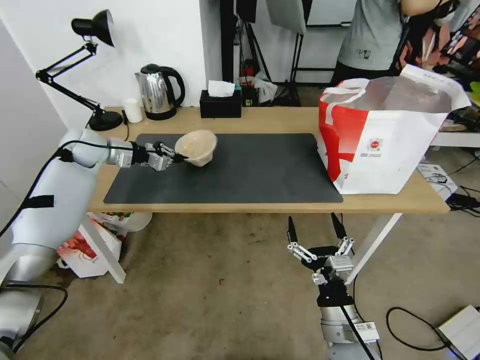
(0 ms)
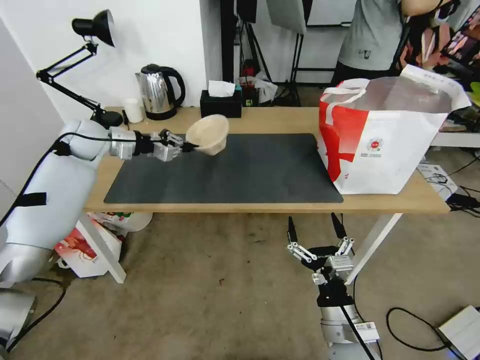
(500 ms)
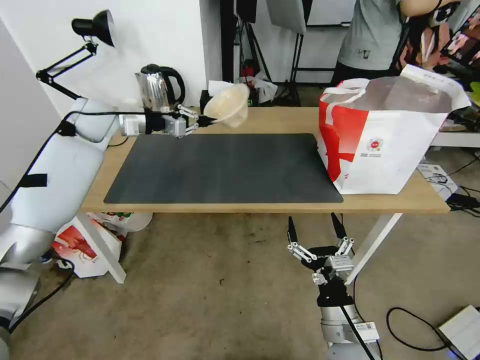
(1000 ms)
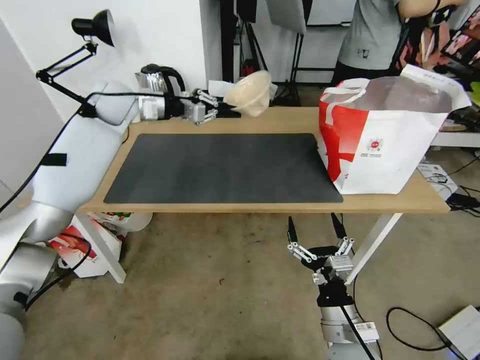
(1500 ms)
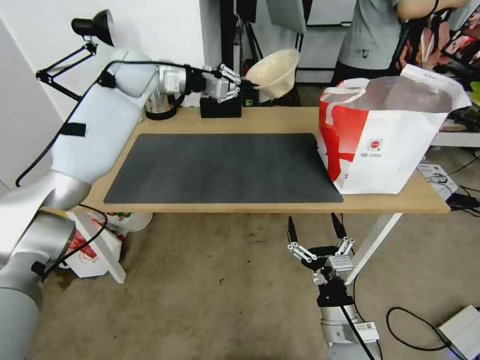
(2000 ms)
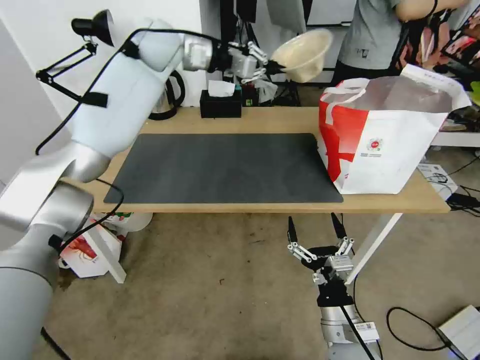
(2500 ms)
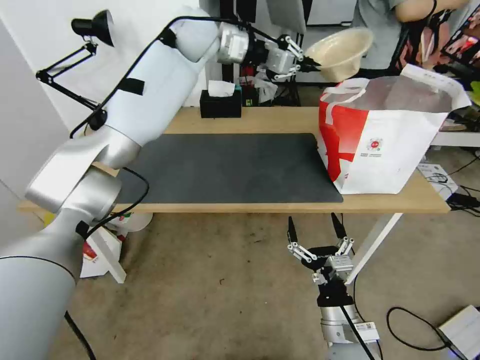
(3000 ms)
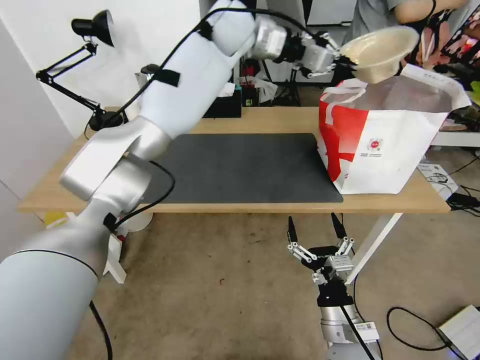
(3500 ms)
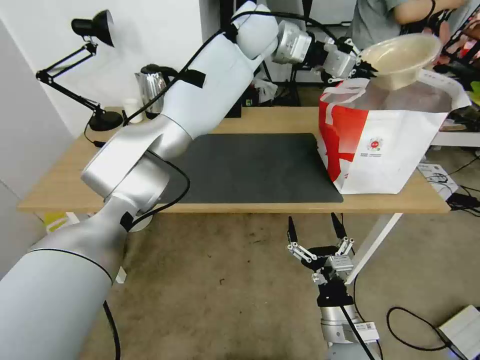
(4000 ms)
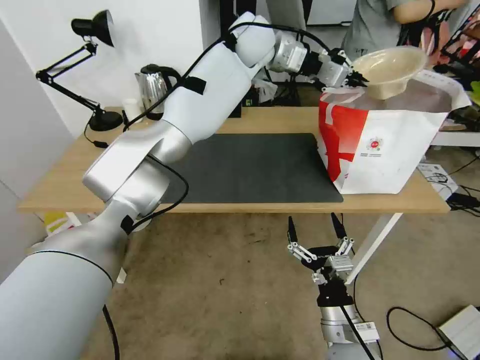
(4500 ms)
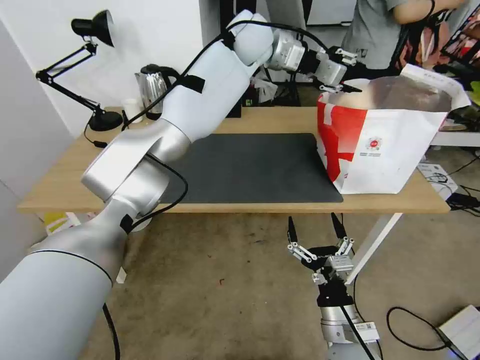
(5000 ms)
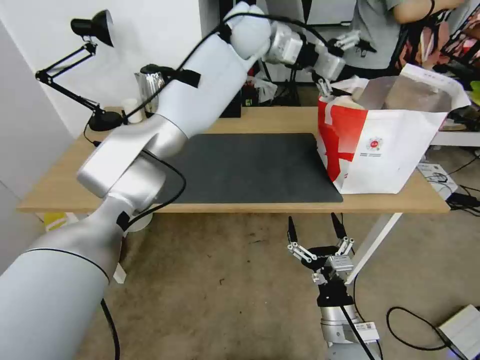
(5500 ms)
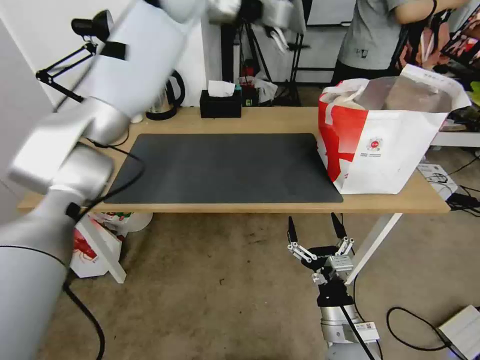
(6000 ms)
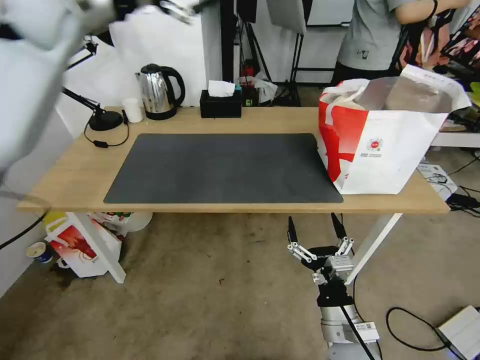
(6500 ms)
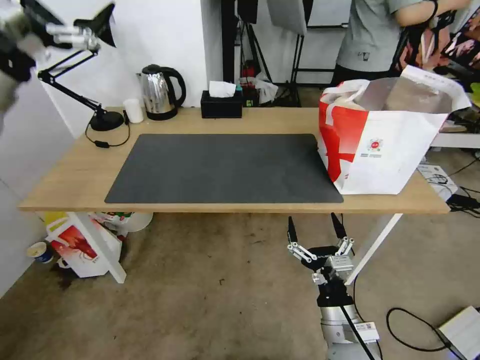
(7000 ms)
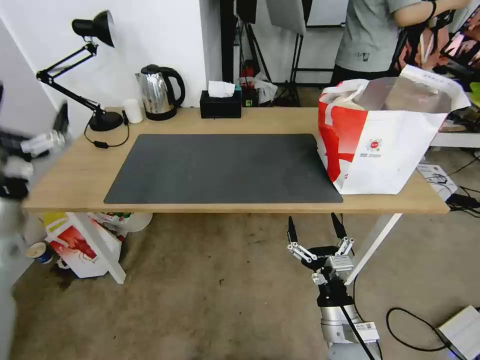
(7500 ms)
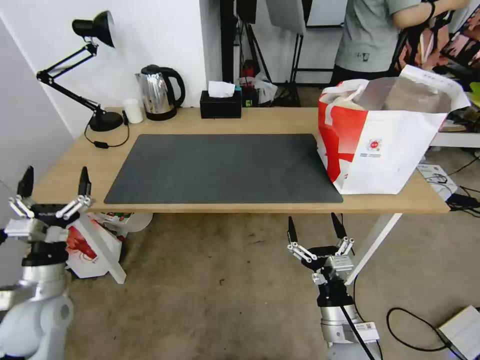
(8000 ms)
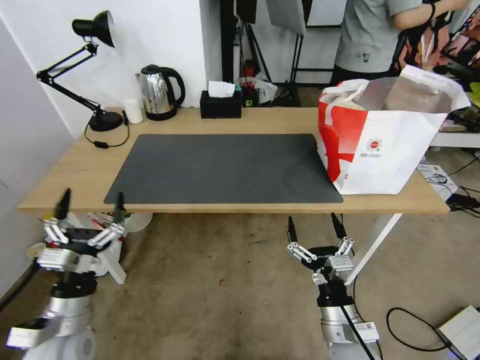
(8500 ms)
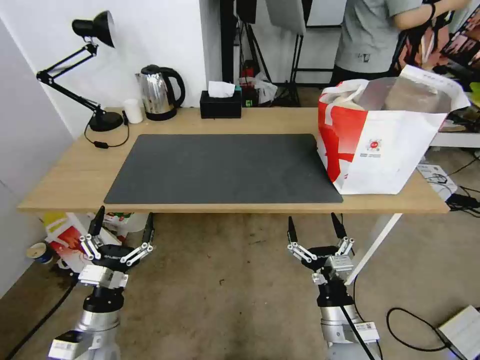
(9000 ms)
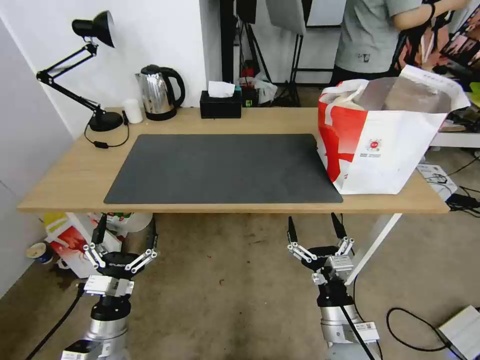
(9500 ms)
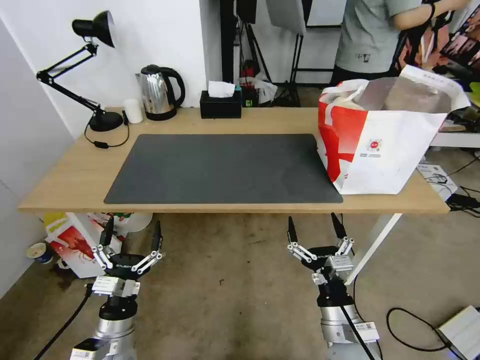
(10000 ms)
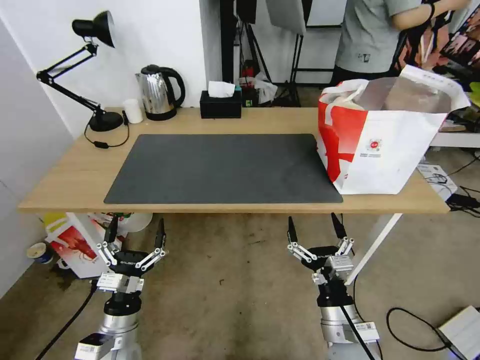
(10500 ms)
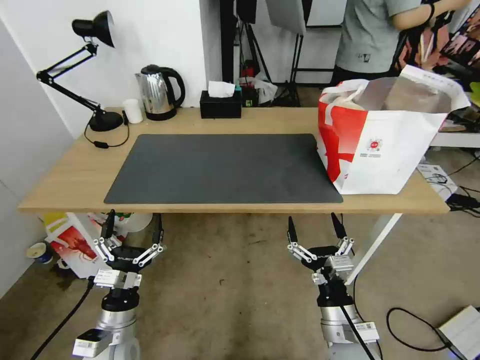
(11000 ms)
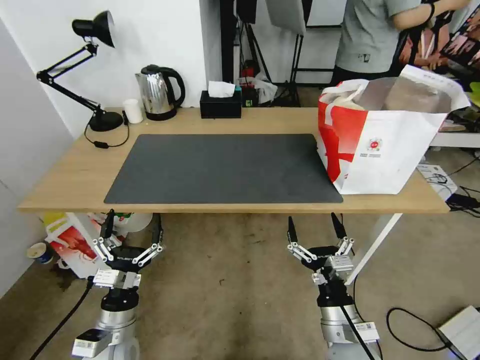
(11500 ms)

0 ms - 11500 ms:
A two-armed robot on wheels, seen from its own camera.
Task of the whole recording: Pick up the trash from the table and place it into the takeout bag.
0 ms - 2000 ms: The left gripper is displaced upward and to the right by approximately 25 cm.
2000 ms - 4000 ms: The left gripper is displaced to the right by about 25 cm.
4000 ms - 6000 ms: The left gripper moves to the left and upward, about 15 cm, and opens.
6000 ms - 7500 ms: The left gripper shifts some 60 cm backward, to the left and downward.
7500 ms - 9500 ms: The left gripper moves downward, to the right and backward, about 30 cm.
9500 ms - 11500 ms: The grippers make only small movements.

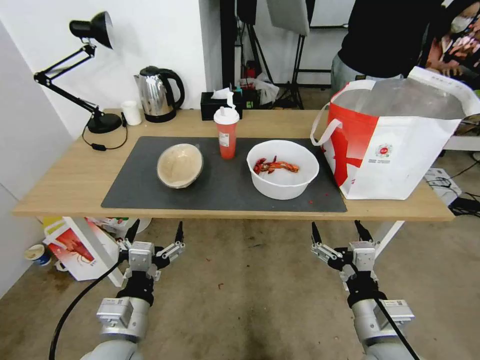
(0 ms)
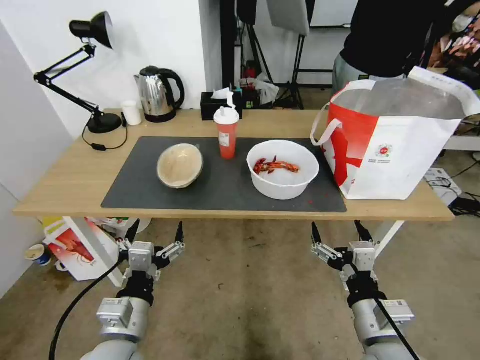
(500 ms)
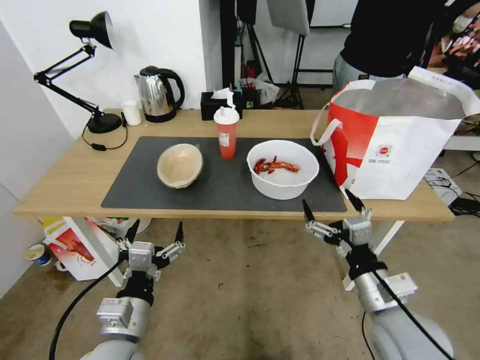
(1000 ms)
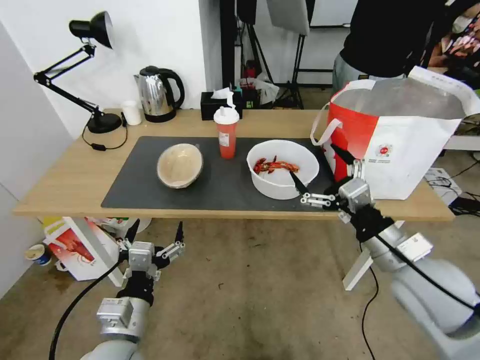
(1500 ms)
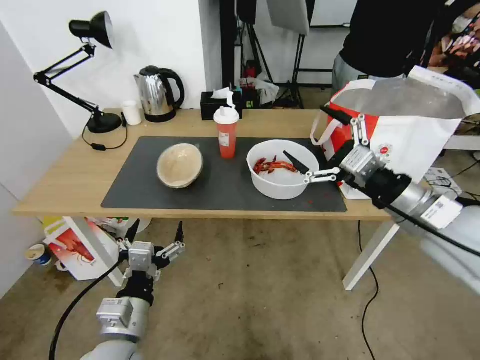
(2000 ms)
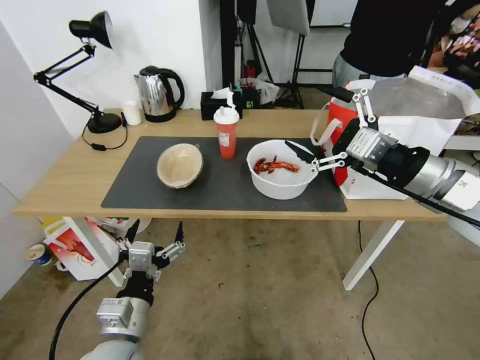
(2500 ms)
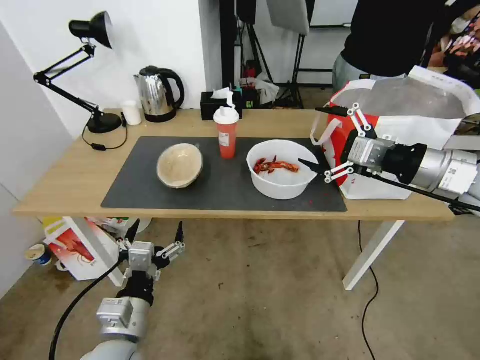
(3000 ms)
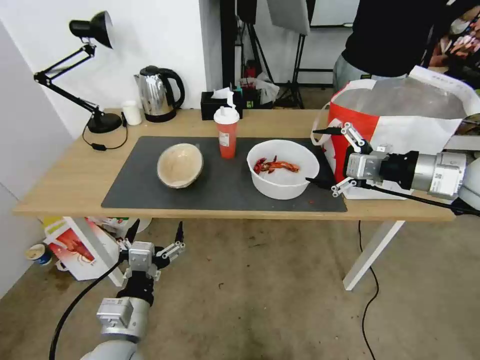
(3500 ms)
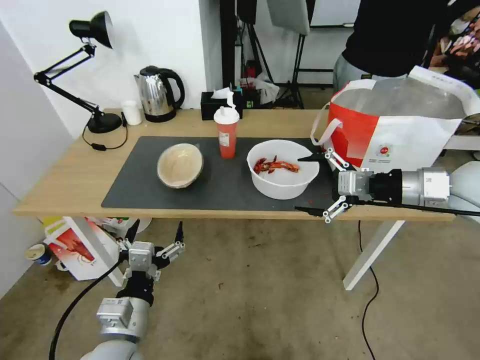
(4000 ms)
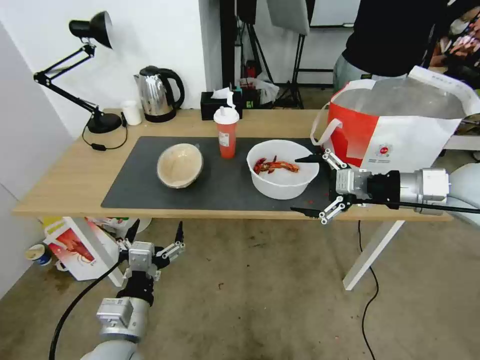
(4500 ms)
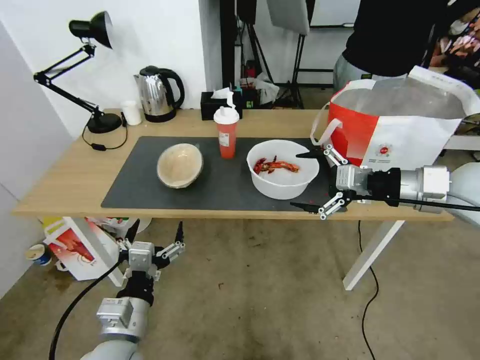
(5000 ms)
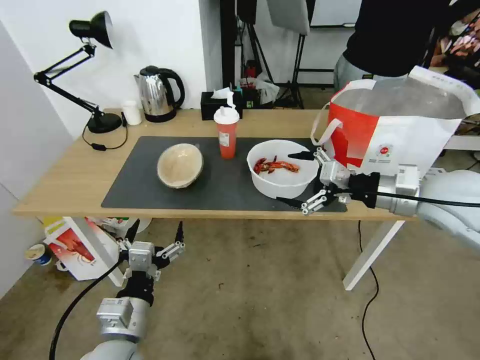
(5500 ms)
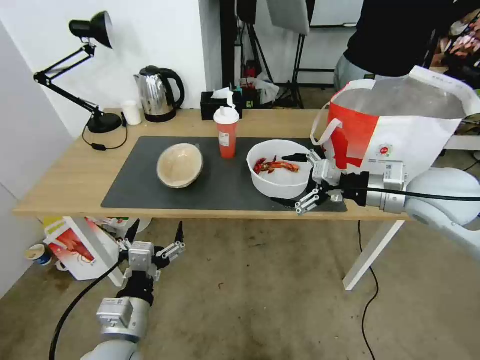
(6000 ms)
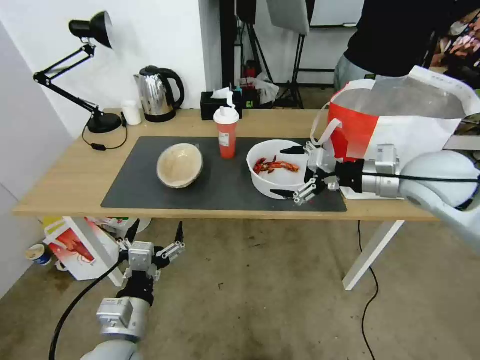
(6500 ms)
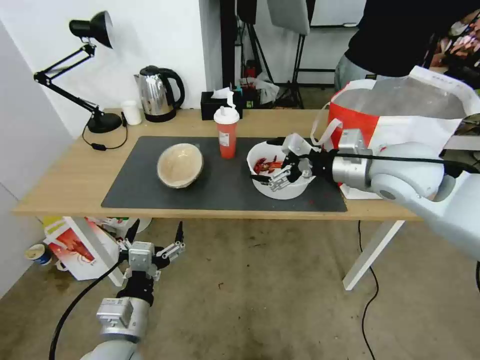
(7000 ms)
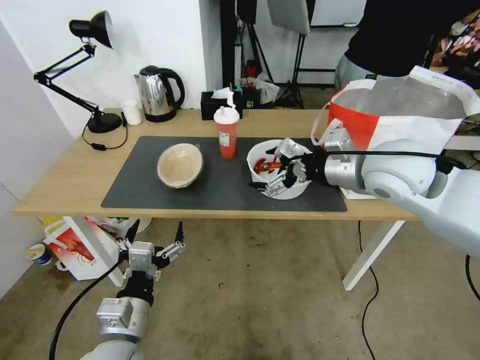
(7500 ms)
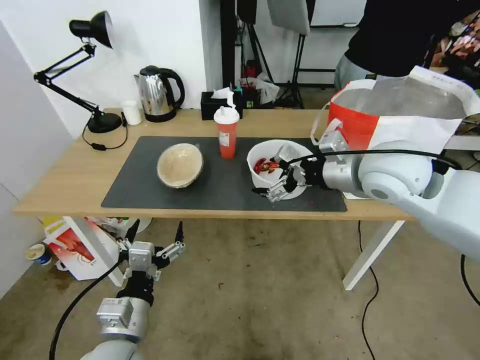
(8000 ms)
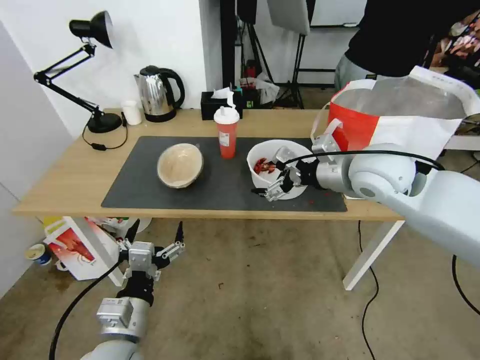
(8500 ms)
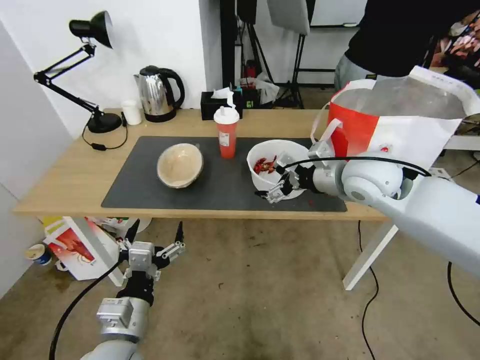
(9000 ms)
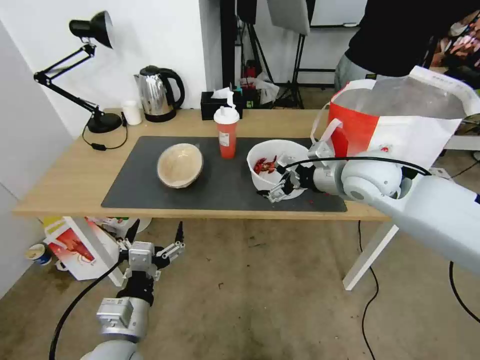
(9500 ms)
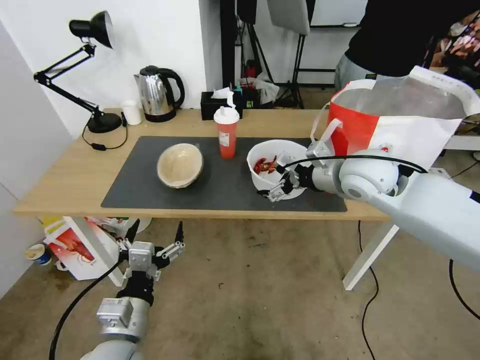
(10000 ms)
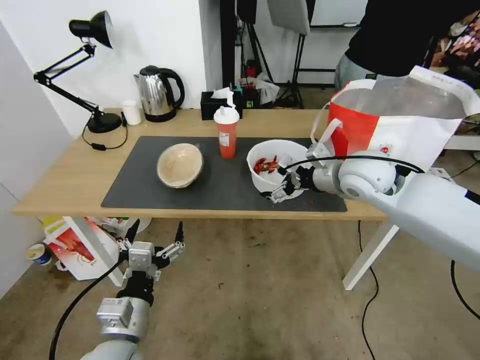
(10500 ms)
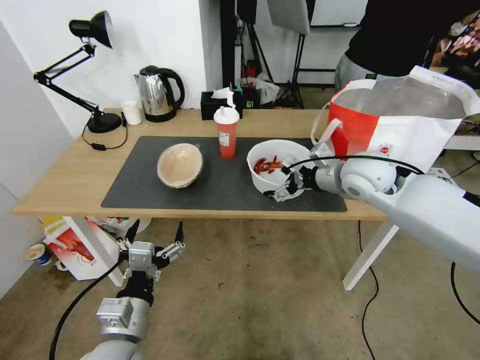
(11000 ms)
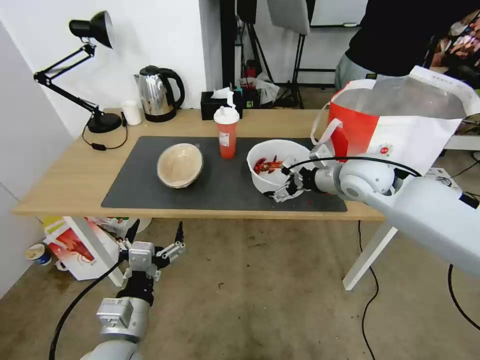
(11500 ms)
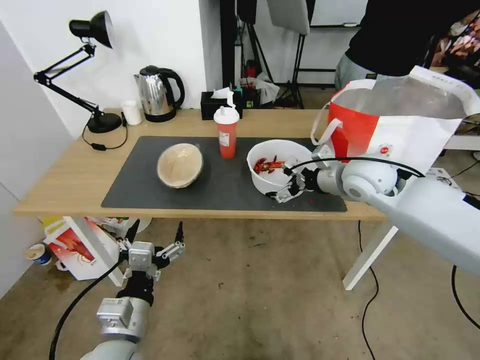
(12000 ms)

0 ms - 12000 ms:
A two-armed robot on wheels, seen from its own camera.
Task of the whole recording: Pick up the trash from the table and place it into the takeout bag.
2000 ms - 4000 ms: The right gripper heads forward, covering about 5 cm.
4000 ms - 6000 ms: The right gripper moves some 5 cm.
6000 ms - 8000 ms: The right gripper goes approximately 10 cm to the left.
8000 ms - 10000 ms: The right gripper moves downward, about 5 cm.
10000 ms - 12000 ms: There are only small adjustments of the grippers.

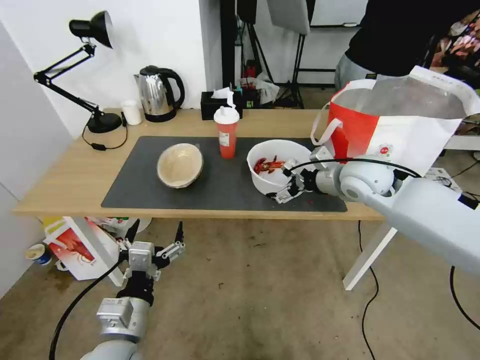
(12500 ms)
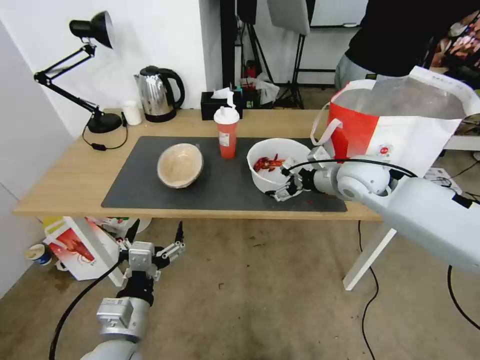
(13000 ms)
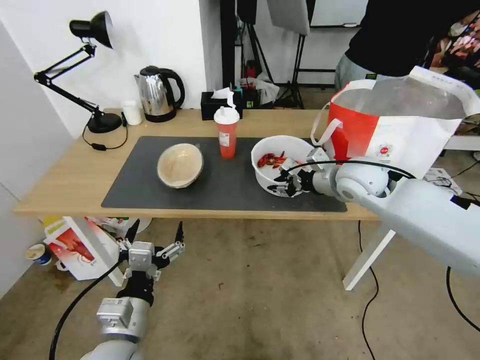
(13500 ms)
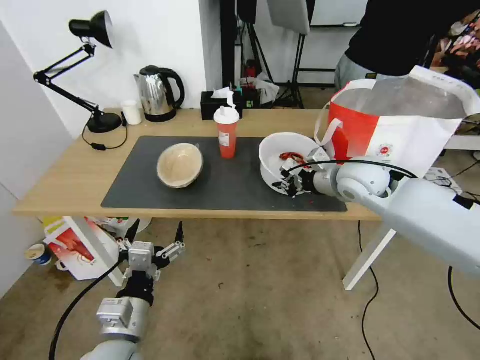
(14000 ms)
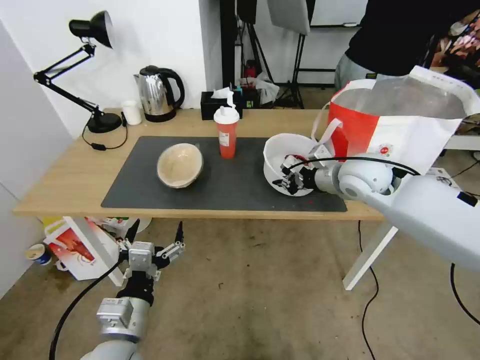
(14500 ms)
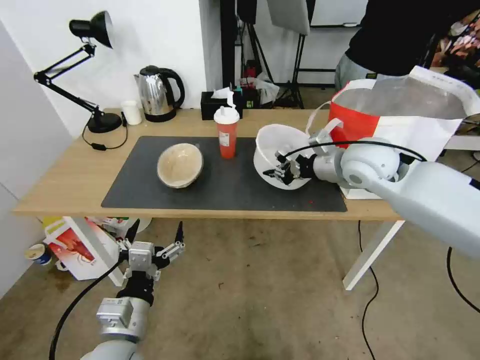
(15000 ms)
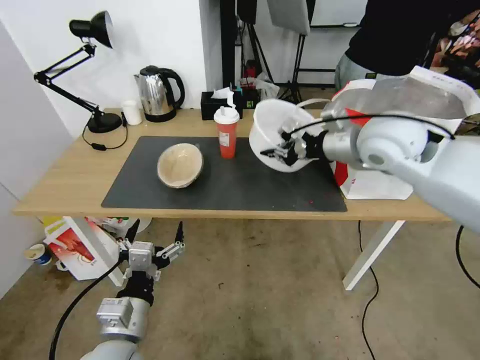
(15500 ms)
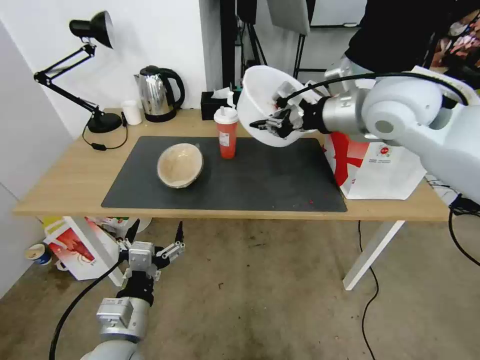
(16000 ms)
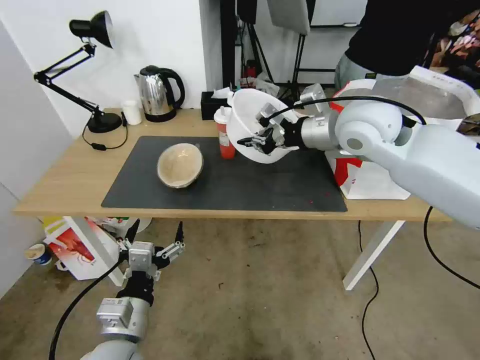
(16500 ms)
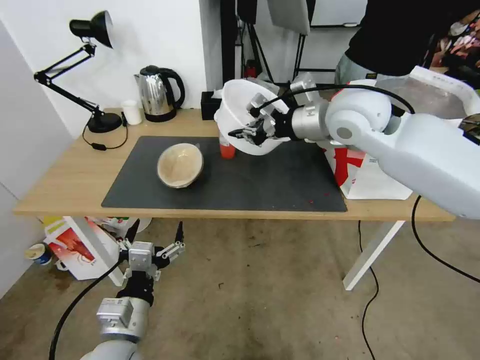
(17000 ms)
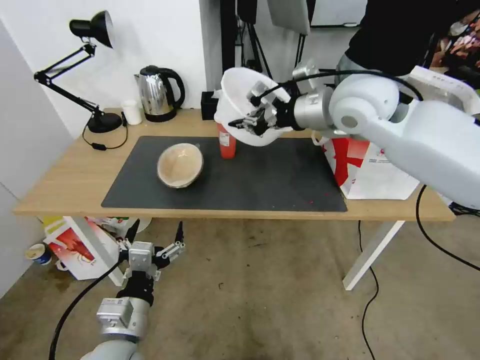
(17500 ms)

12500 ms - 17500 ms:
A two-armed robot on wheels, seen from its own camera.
Task of the whole recording: Pick up the trash from the table and place it into the takeout bag.
12500 ms - 15000 ms: The right gripper closes.
15000 ms - 17500 ms: The right gripper moves up and down over some 15 cm, changing direction 2 times.
